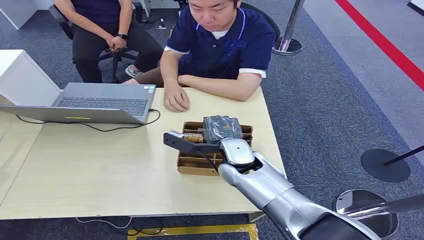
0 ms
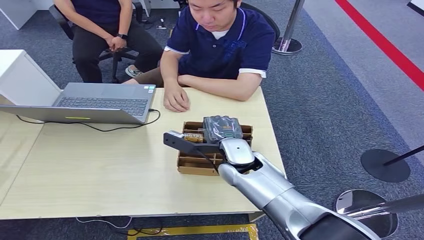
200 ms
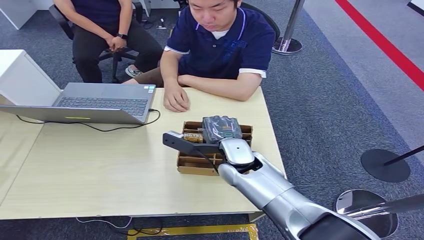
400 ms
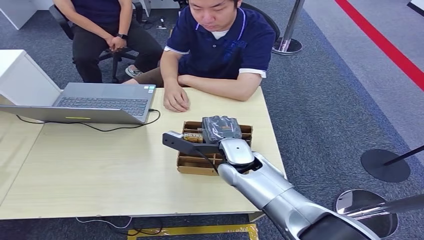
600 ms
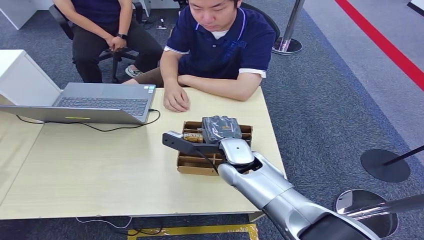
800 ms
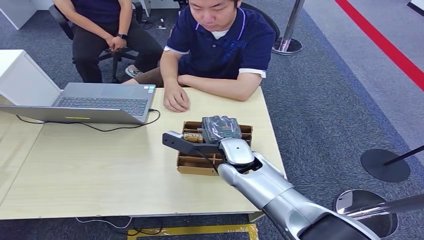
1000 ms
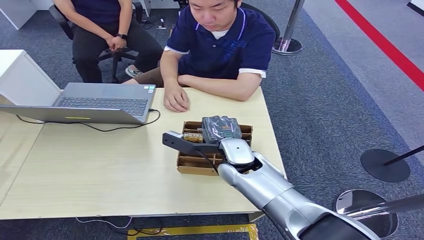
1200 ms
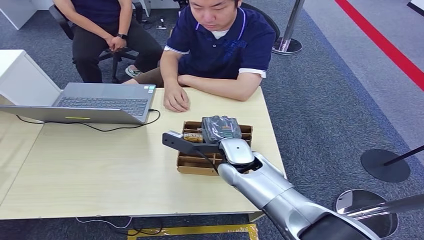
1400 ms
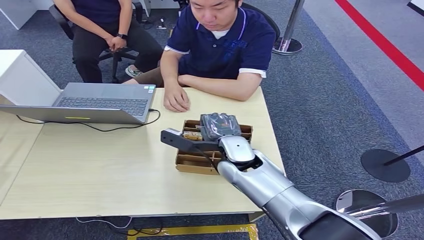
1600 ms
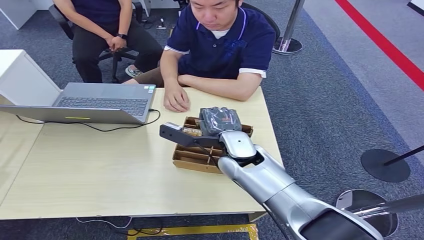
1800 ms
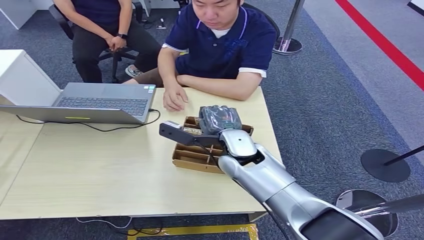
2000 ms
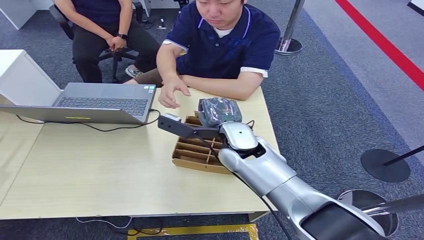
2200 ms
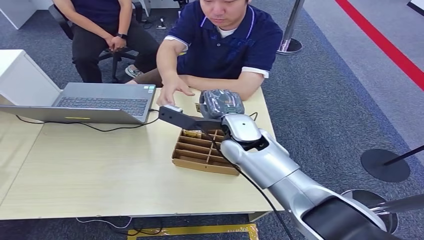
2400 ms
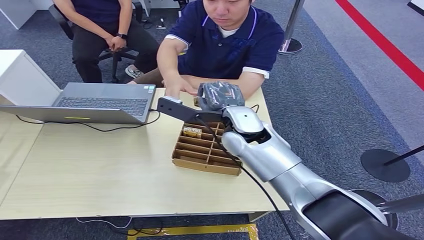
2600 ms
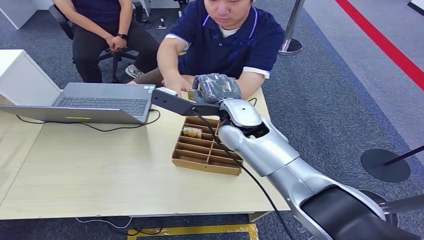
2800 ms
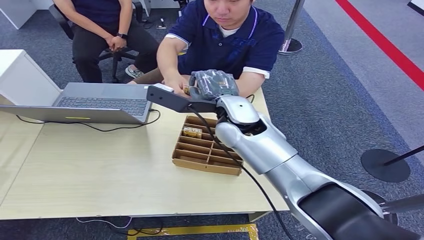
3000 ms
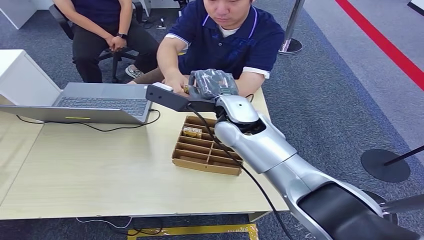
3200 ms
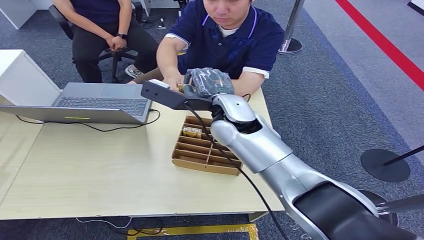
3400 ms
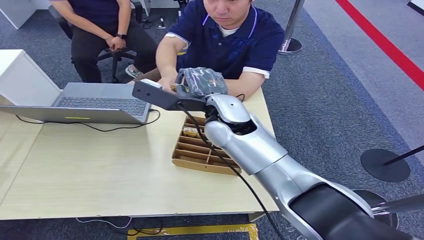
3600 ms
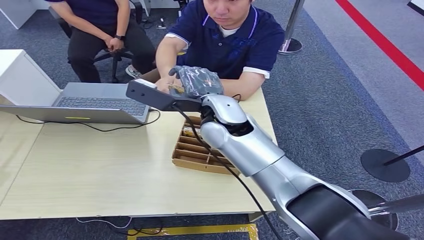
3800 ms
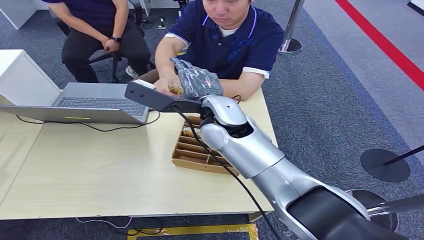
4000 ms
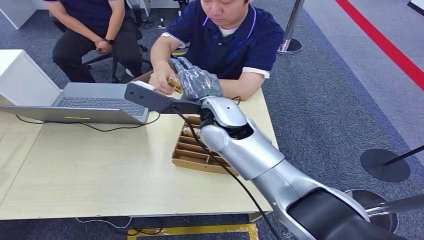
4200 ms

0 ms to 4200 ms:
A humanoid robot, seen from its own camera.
Step, 0 ms to 2200 ms: Pick up the key card from the card box.
Step, 2400 ms to 4200 ms: Hand the key card to the target.
1400 ms to 2800 ms: The right hand shifts approximately 10 cm upward.
2800 ms to 4200 ms: The hands move only a little.

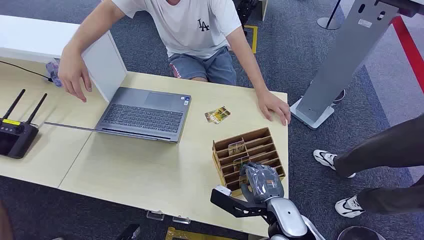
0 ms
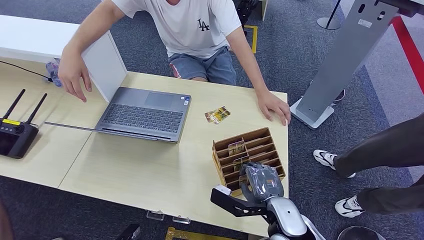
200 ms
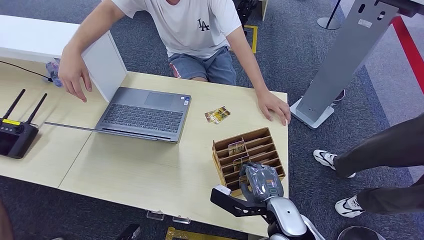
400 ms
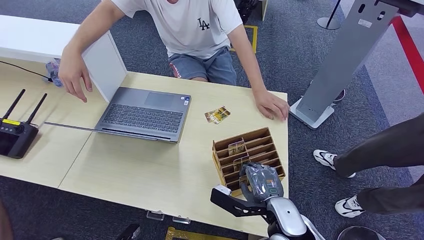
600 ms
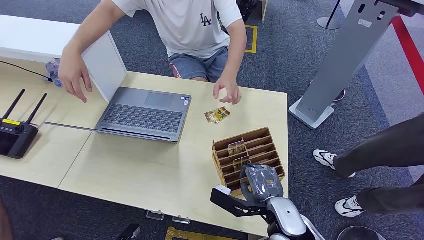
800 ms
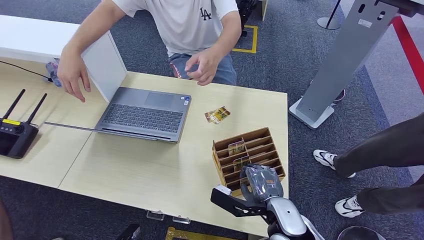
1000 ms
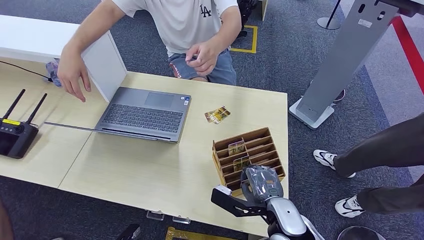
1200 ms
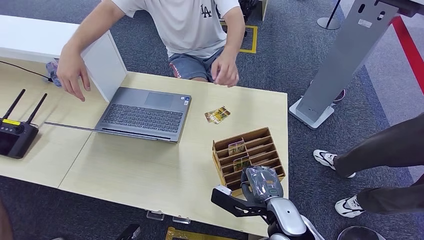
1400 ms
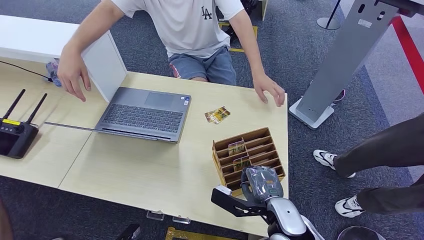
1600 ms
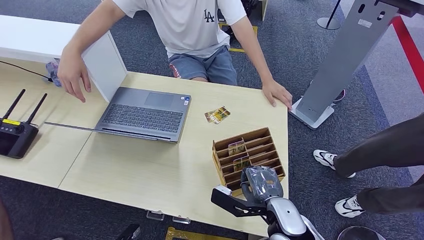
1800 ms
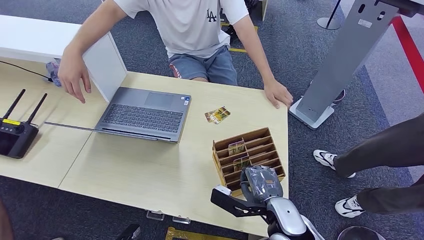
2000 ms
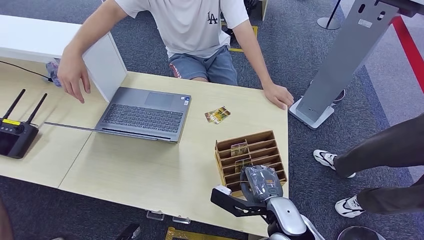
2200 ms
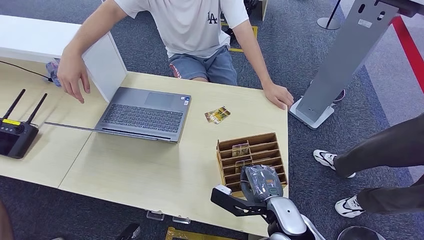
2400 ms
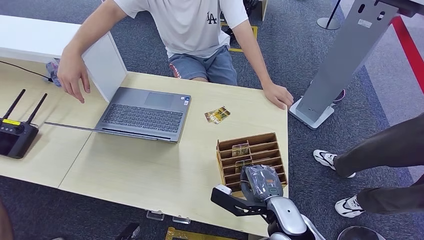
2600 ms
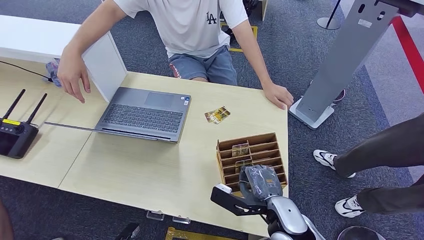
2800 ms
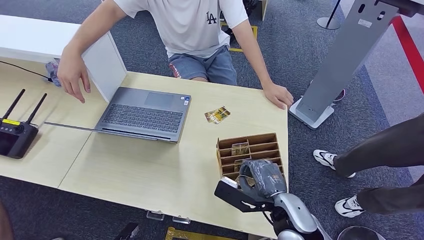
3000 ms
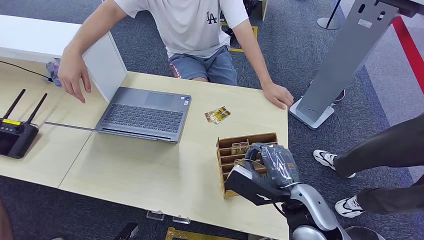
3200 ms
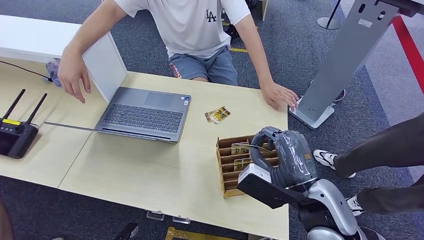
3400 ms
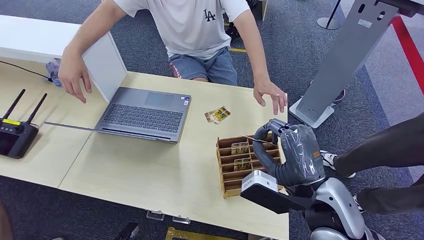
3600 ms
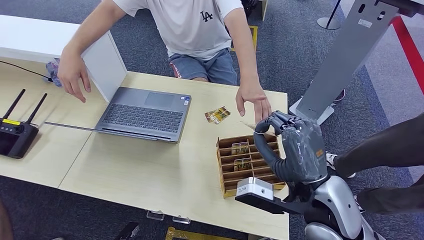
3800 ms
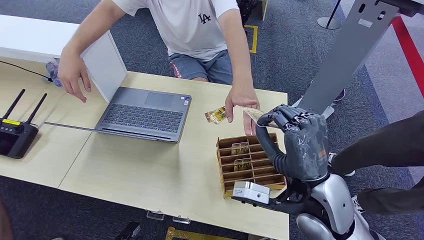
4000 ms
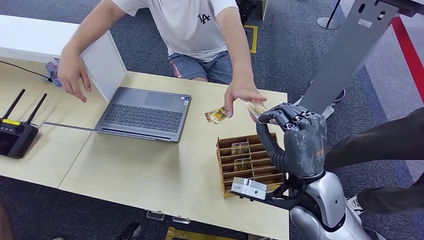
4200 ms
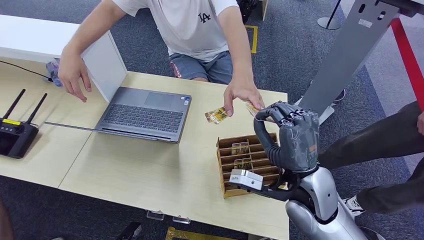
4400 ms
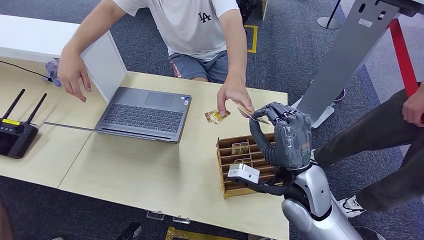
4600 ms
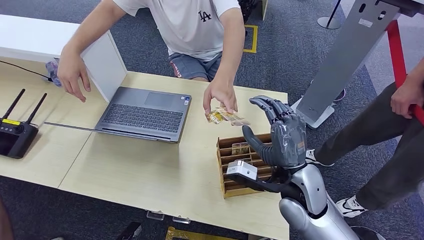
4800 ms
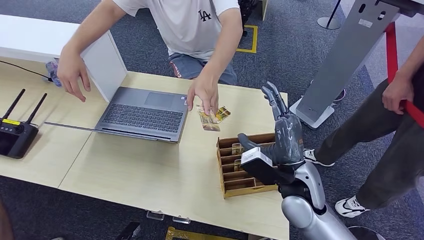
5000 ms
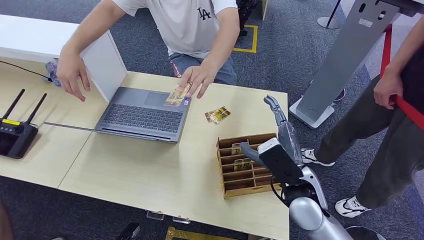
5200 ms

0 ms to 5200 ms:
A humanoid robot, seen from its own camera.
Step, 0 ms to 3800 ms: Pick up the key card from the card box.
Step, 4000 ms to 5200 ms: Hand the key card to the target.
1800 ms to 3400 ms: The right hand shifts approximately 10 cm upward.
